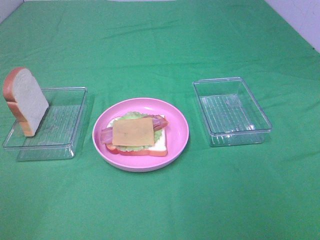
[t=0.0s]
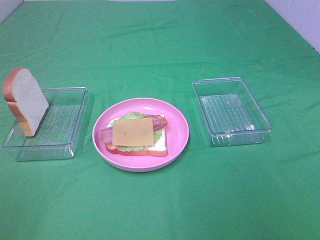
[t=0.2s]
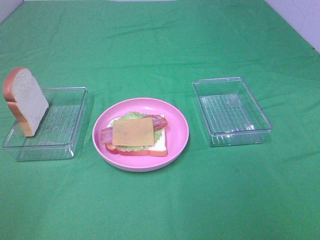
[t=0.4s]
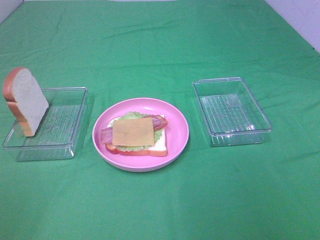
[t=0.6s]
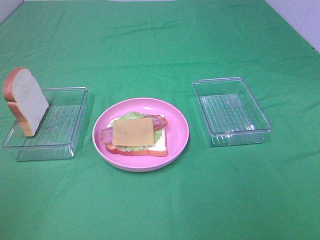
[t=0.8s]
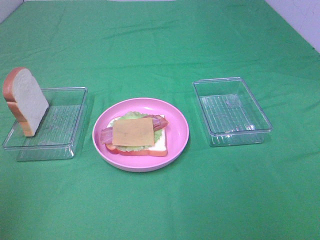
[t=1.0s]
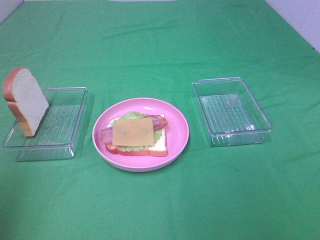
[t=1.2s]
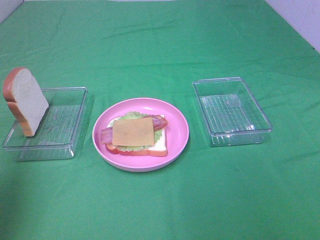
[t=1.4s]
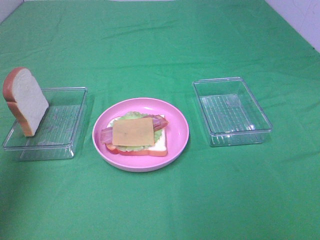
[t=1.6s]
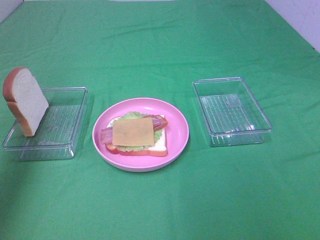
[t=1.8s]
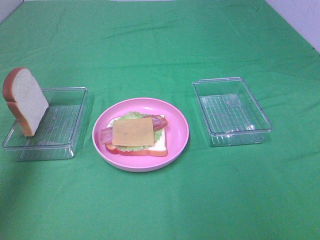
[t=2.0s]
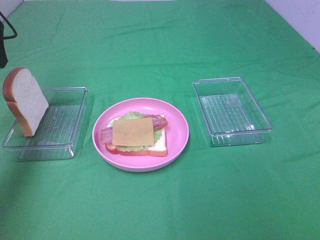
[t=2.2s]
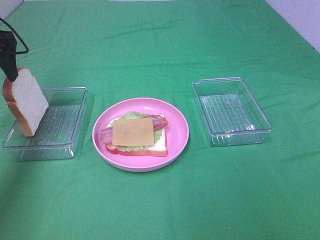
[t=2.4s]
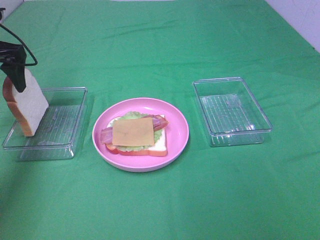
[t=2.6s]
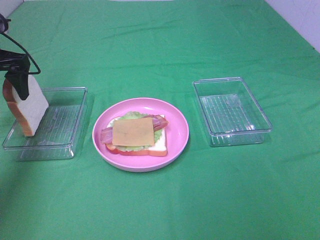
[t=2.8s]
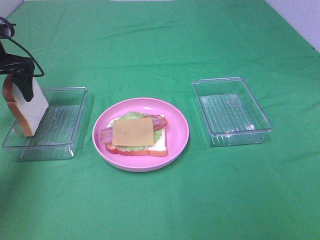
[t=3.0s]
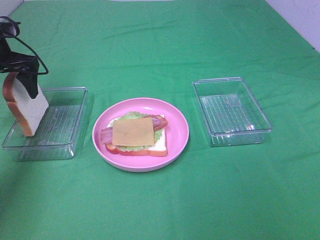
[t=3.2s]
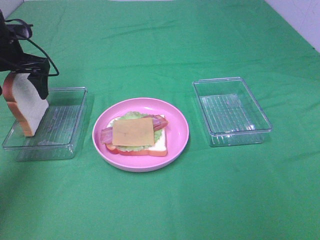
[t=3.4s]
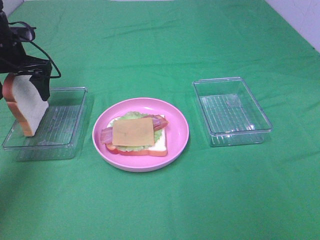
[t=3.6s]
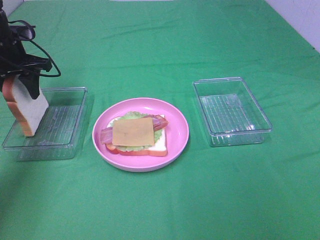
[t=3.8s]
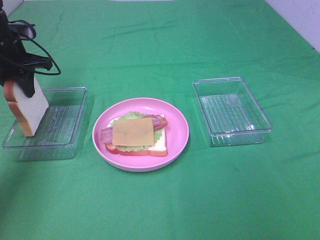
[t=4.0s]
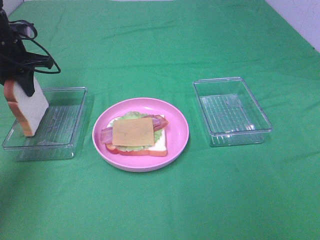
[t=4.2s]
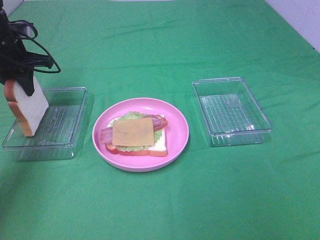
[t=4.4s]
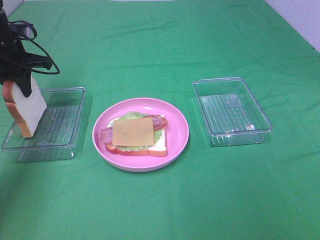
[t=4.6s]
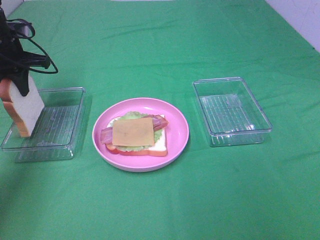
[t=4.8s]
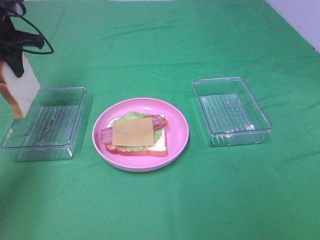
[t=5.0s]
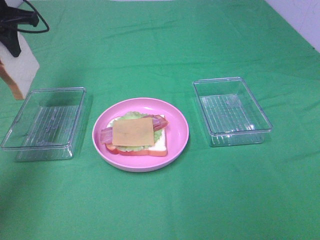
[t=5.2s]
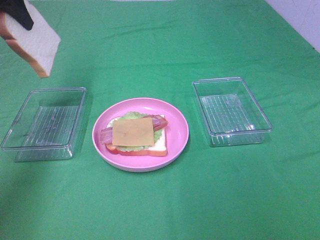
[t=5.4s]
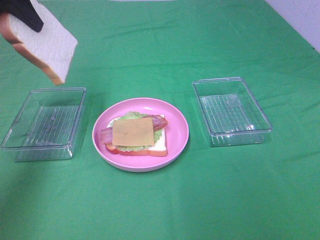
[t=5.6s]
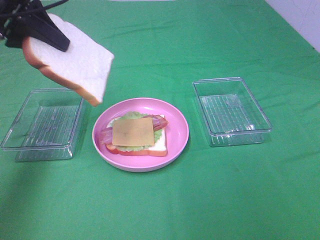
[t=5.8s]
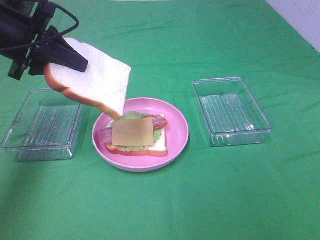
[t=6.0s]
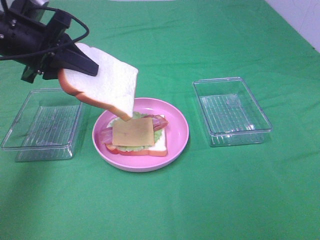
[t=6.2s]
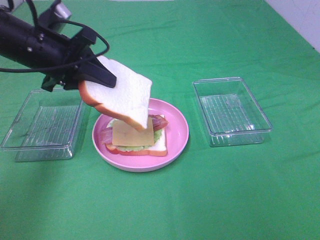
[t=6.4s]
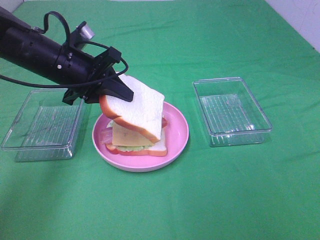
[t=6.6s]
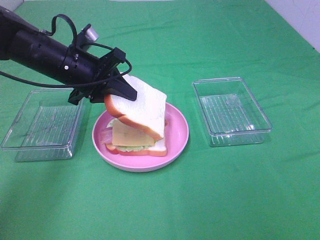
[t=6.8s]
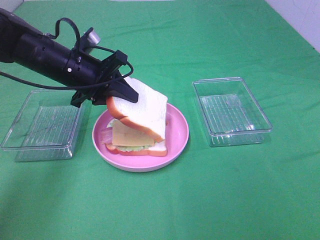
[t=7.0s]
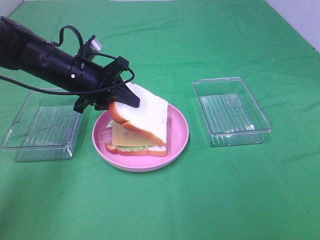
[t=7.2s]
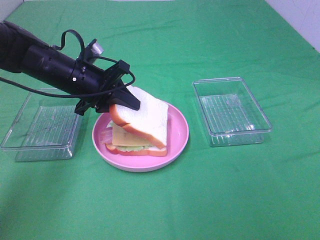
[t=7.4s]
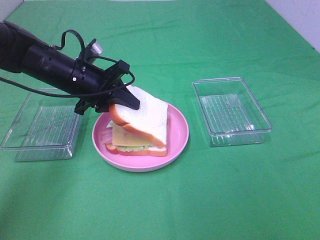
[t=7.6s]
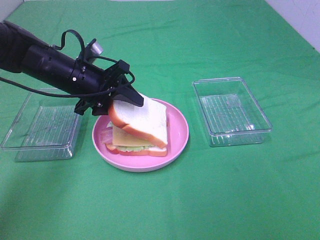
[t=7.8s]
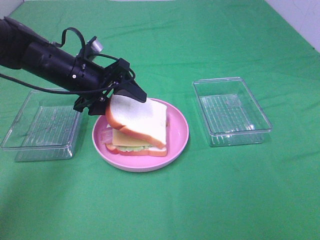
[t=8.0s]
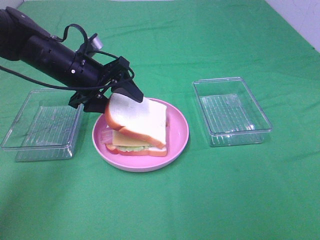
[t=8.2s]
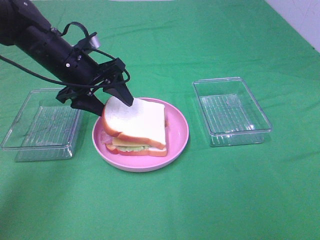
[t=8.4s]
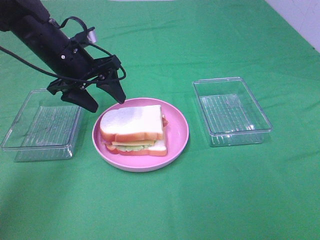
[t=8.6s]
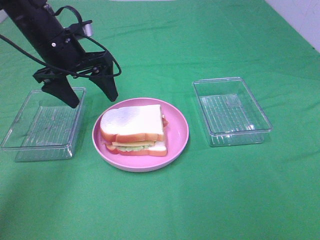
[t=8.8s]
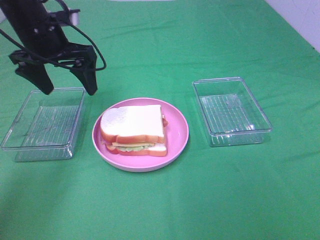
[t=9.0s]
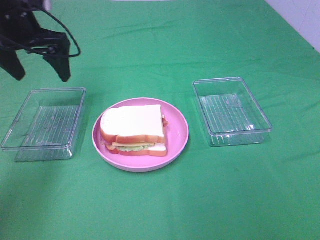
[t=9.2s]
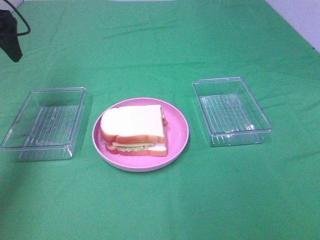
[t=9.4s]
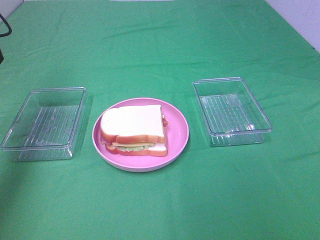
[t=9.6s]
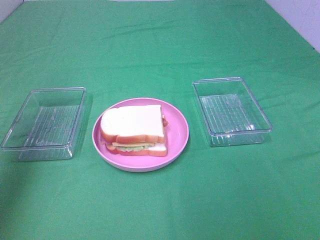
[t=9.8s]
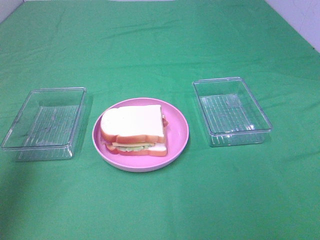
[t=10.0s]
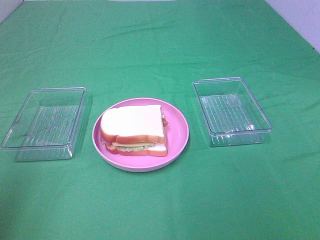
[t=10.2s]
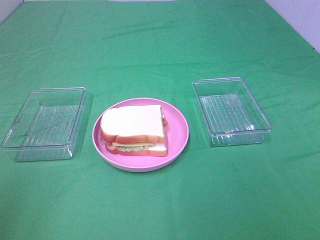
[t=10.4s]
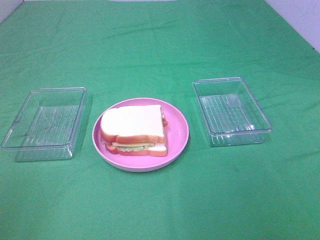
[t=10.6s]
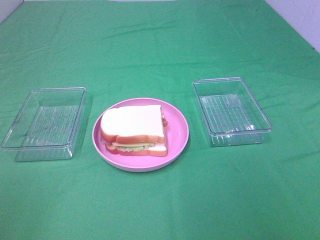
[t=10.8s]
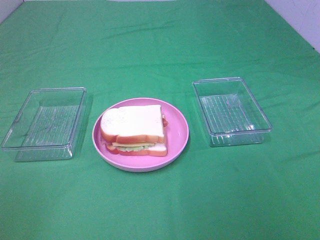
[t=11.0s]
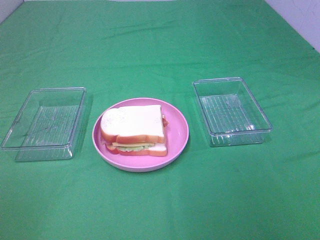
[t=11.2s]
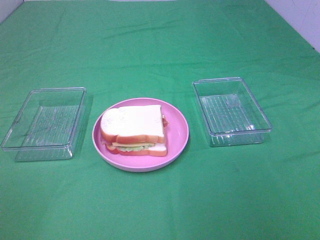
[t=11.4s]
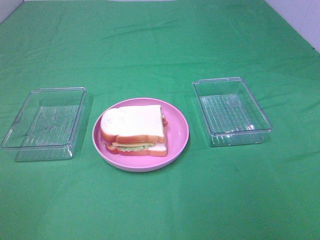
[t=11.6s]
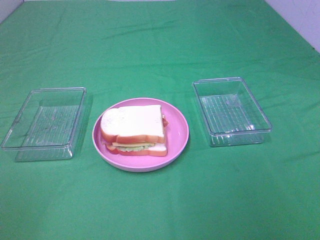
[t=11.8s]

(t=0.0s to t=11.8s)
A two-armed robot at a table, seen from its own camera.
Task of the whole recording: Make sandwiches.
Step, t=0.0s - t=4.6s: Left hand:grab the bread slice.
Step, t=4.8s - t=8.6s: Left hand:place the bread slice on the cheese slice.
t=0.0s - t=1.4s: The left gripper moves forward and upward, some 20 cm.
t=1.4s - t=3.0s: The left gripper goes about 30 cm forward and downward.
t=3.0s - t=4.4s: The left gripper closes.
t=4.4s - t=6.0s: The left gripper shifts about 15 cm backward, to the right and upward.
t=6.0s - t=7.4s: The left gripper shifts roughly 15 cm downward and to the right.
t=7.4s - t=8.8s: The left gripper moves upward, approximately 5 cm, and opens.
t=8.8s - t=10.4s: The left gripper is displaced backward by about 35 cm.
